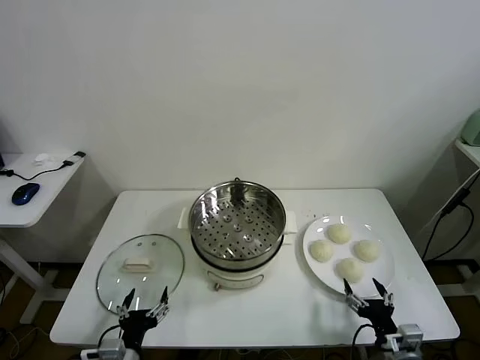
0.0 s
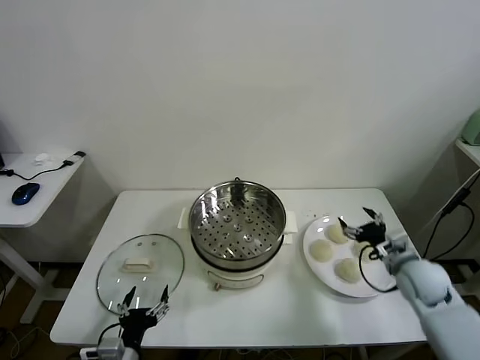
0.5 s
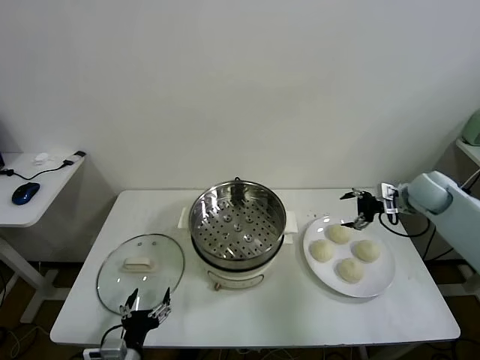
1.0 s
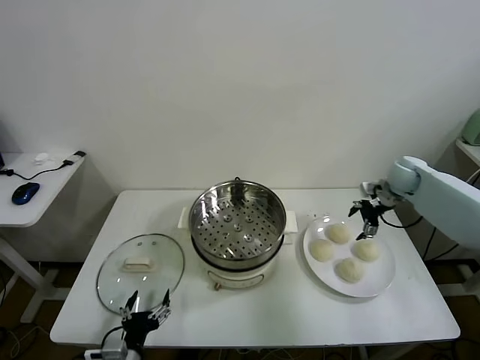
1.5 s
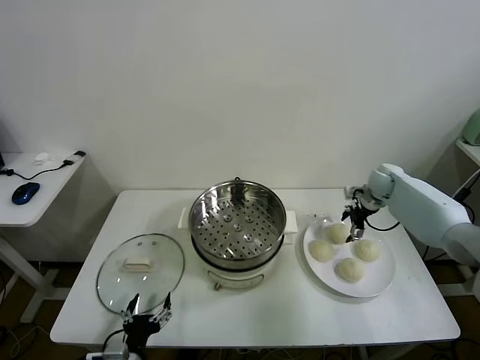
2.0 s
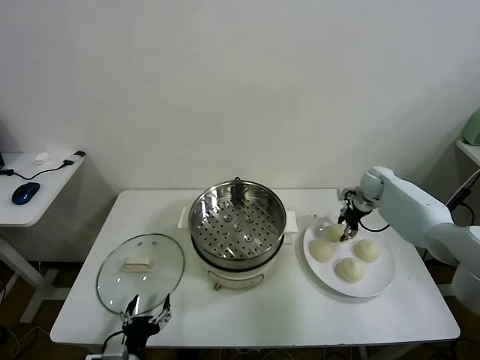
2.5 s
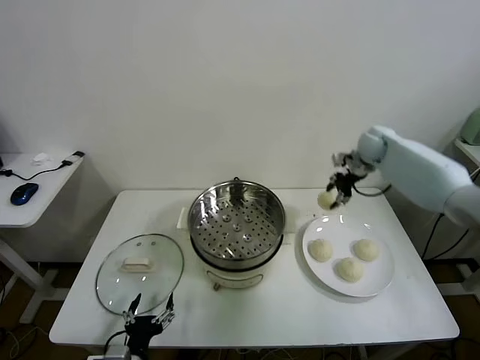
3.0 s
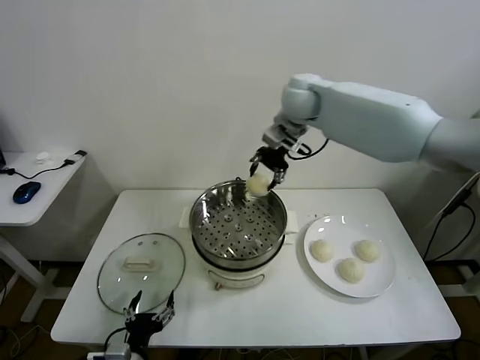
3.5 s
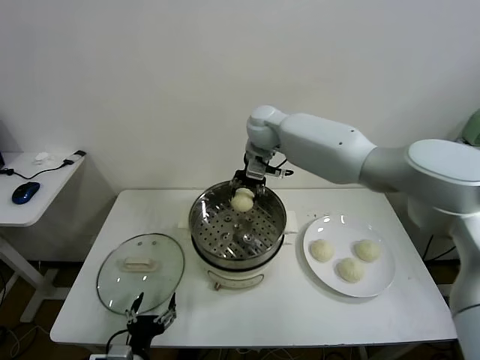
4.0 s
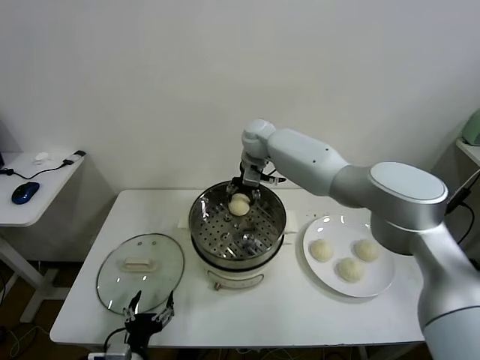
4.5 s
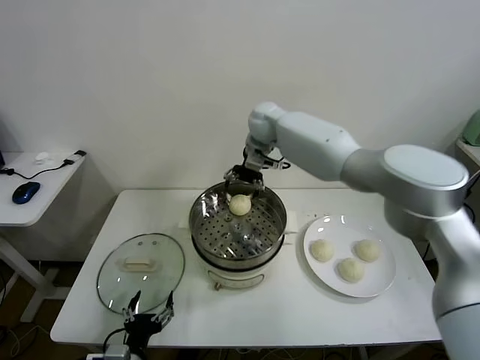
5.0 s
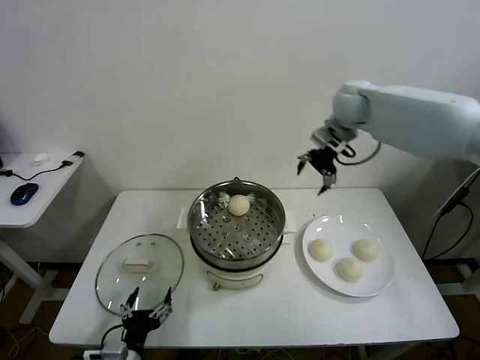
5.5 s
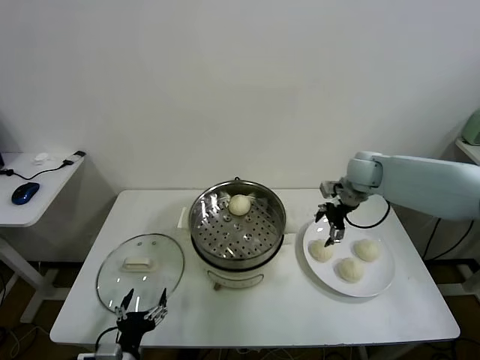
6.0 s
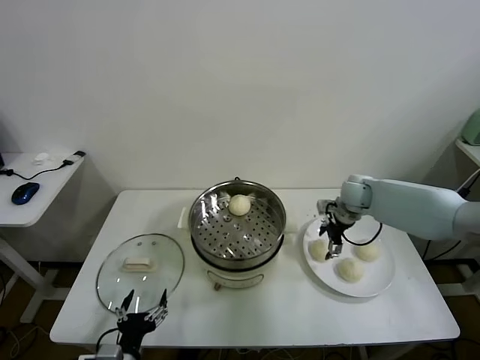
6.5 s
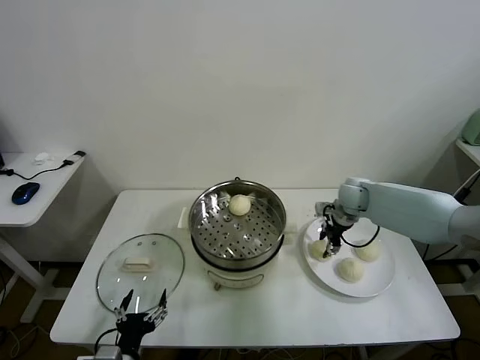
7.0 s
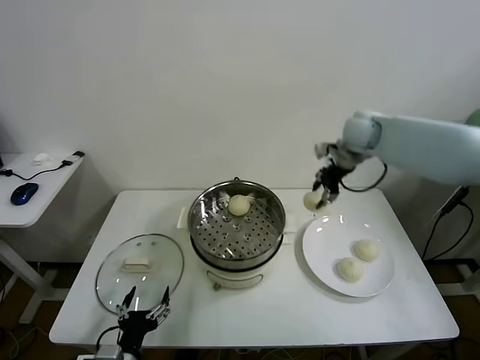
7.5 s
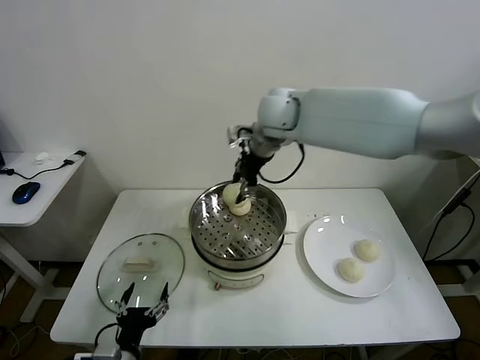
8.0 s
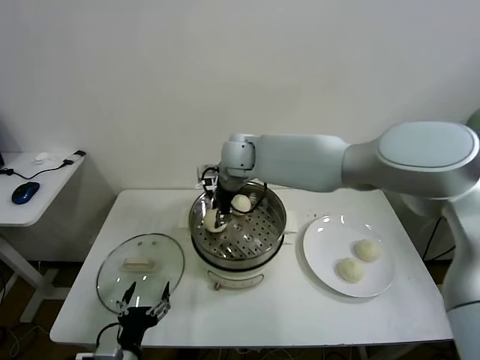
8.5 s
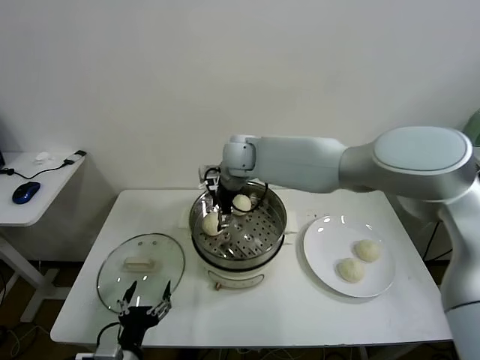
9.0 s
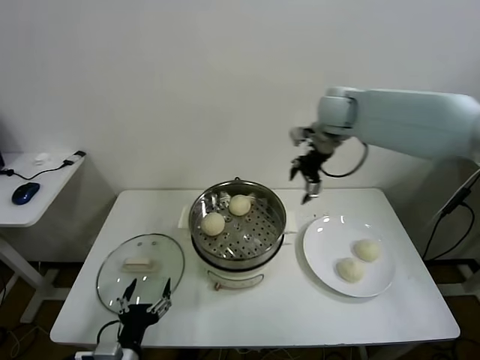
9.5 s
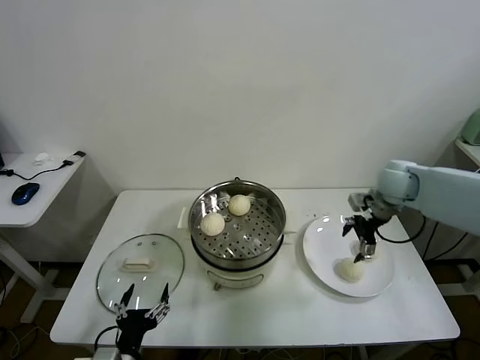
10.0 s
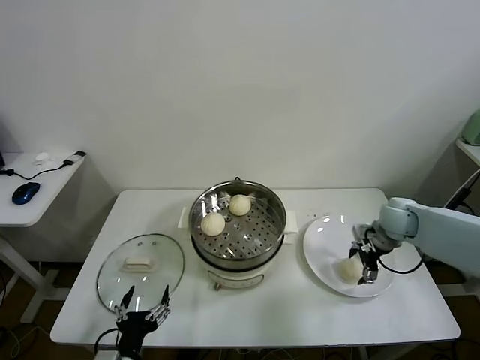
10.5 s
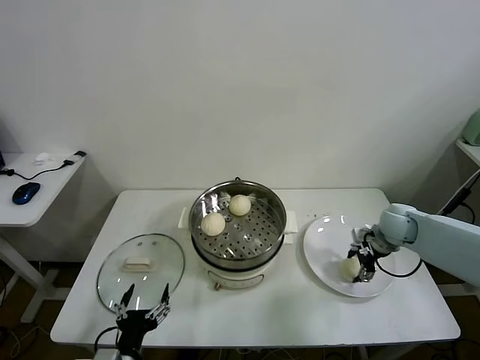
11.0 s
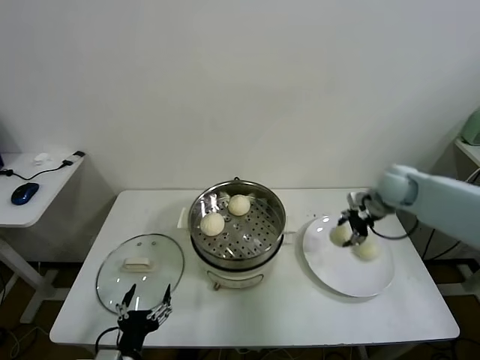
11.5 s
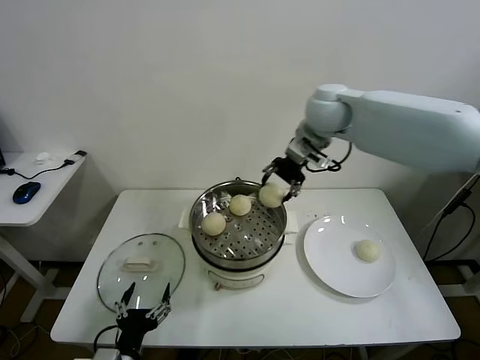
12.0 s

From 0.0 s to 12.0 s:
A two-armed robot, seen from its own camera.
Task of the whole recording: take steamed baozi put them in steamer.
Step, from 0.0 s to 2.5 s: Grasp the baozi in the plate with right gripper.
Step, from 3.0 s to 4.5 s: Place the baozi on the steamer with right gripper.
Step, from 5.0 s to 7.0 s: Grasp the baozi in the plate with right gripper.
Step, from 7.5 s to 9.0 s: Place the baozi on the steamer with right gripper.
Step, from 9.5 s to 11.0 s: Grasp the baozi in the plate with right gripper.
From 2.0 s to 4.0 s: The right gripper is displaced to the left and upward by about 40 cm, and closes its fingers.
From 4.0 s to 6.0 s: The right gripper travels to the right by roughly 25 cm, and opens up.
From 6.0 s to 8.0 s: The right gripper travels to the left and upward by roughly 30 cm, and closes.
From 8.0 s to 10.0 s: The right gripper heads to the right and downward, covering about 35 cm, and opens its fingers.
From 10.0 s to 12.0 s: The right gripper moves to the left and upward, roughly 25 cm, and closes up.

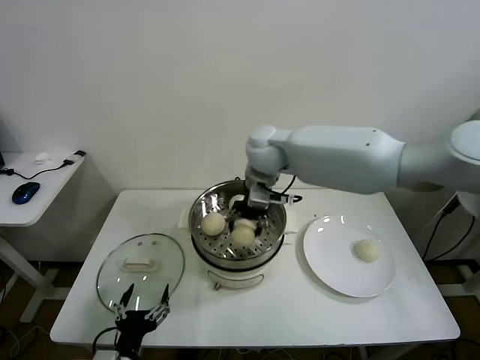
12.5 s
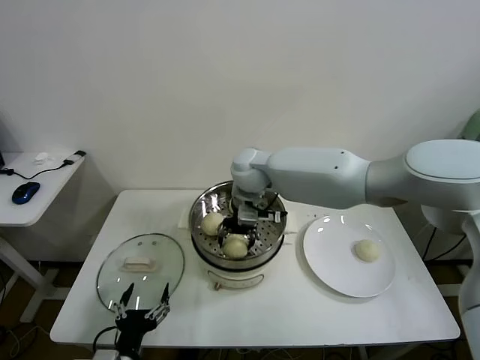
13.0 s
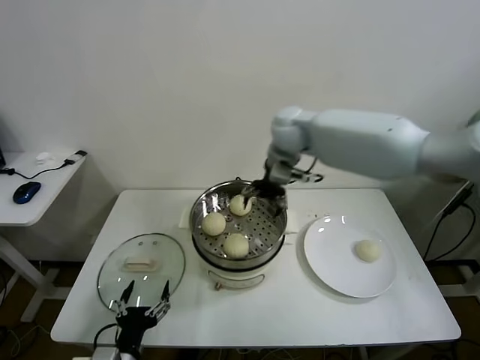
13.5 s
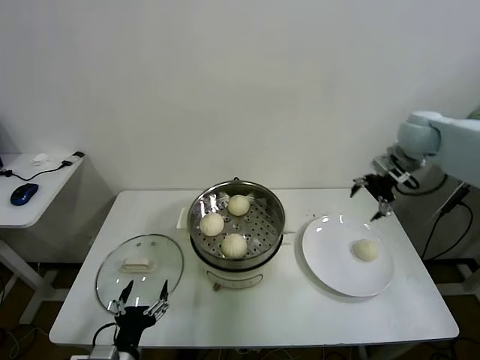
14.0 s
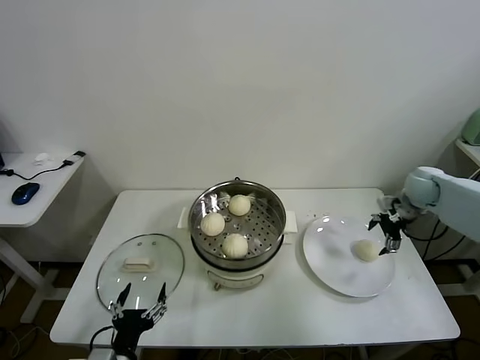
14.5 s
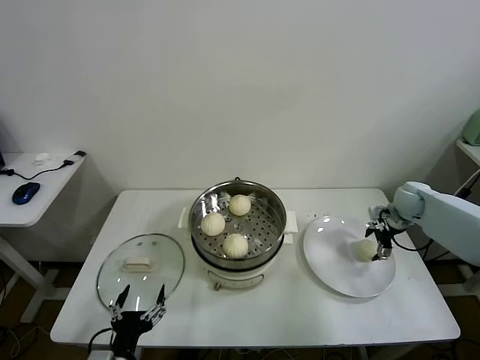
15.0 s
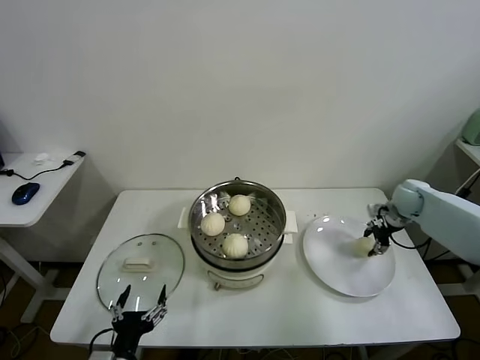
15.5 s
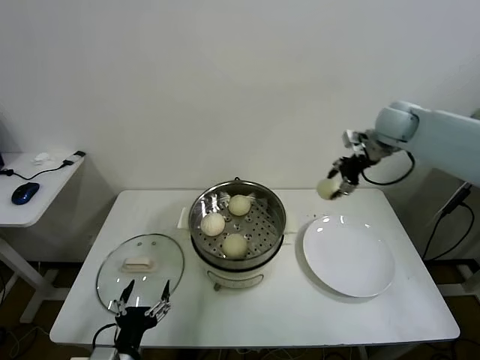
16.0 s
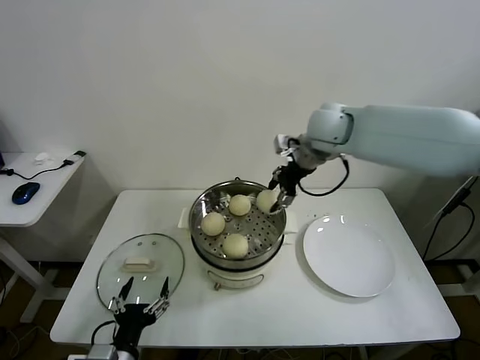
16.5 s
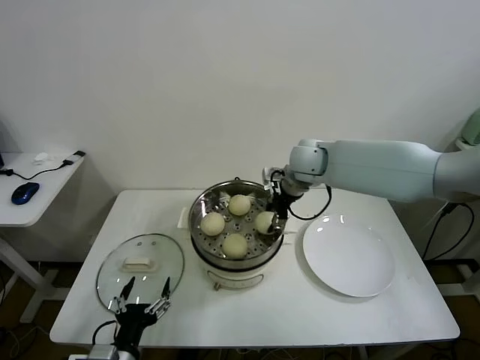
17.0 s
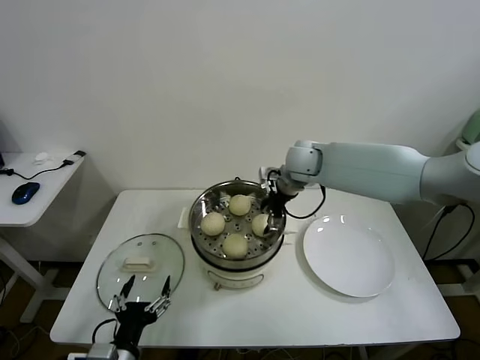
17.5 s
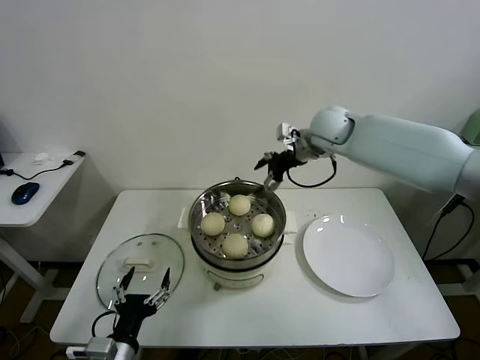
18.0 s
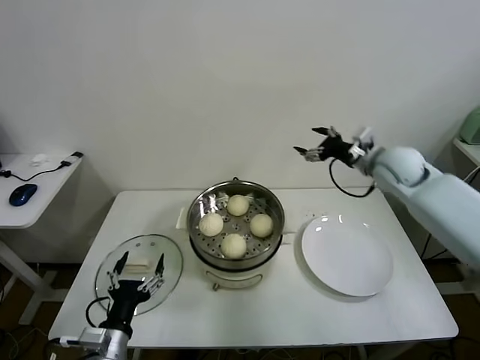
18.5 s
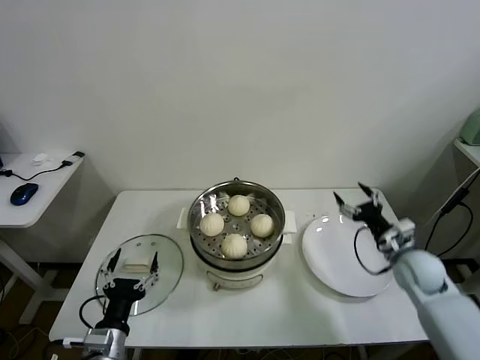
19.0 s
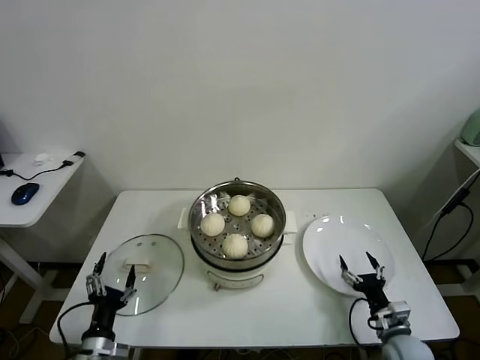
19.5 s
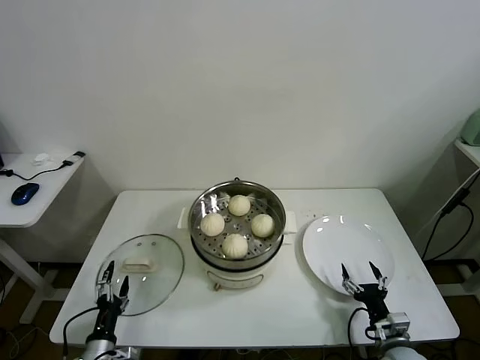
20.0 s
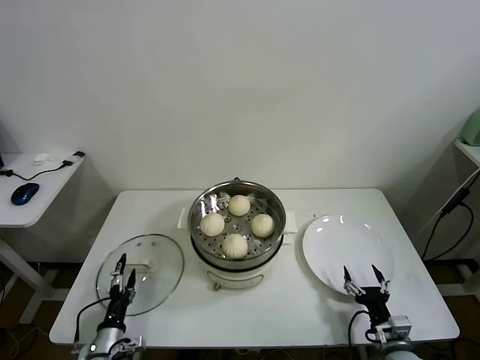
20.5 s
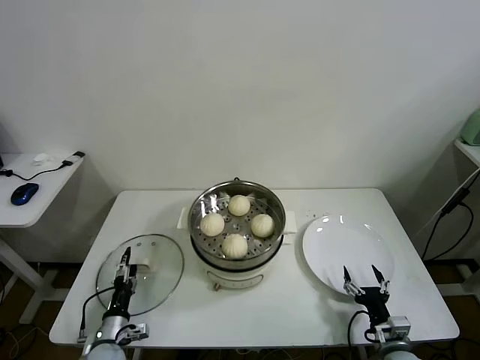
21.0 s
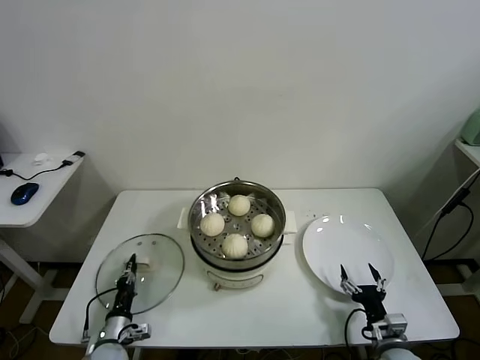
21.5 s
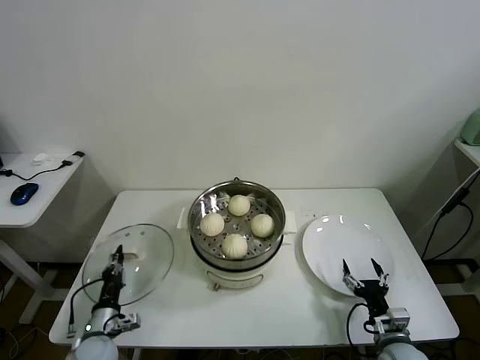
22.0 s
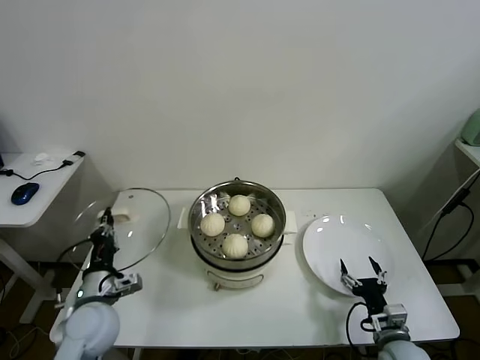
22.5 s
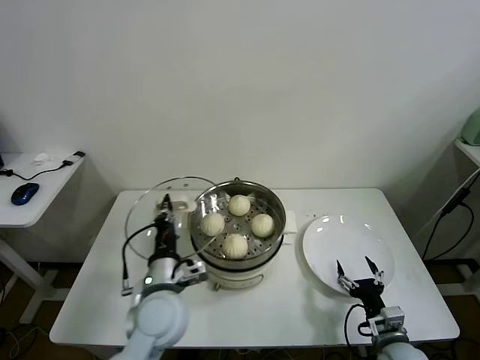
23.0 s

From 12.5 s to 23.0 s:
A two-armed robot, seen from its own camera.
Task of the whole recording: take steamed baozi put them in steamer.
Step, from 13.5 s to 15.0 s: Grasp the baozi in the plate with right gripper.
Step, from 15.5 s to 17.5 s: Place the baozi on the steamer with right gripper.
Step, from 18.0 s to 21.5 s: Grasp the pot lid with left gripper.
From 12.5 s to 14.5 s: The right gripper moves to the right, roughly 40 cm, and opens its fingers.
From 14.5 s to 16.5 s: The right gripper heads to the left and upward, covering some 30 cm, and closes its fingers.
From 16.5 s to 19.0 s: The right gripper swings up and down, some 25 cm each way, with 2 reversals, and opens its fingers.
From 19.0 s to 21.0 s: The left gripper moves downward, forward and to the left, about 20 cm, while the right gripper moves backward and downward, roughly 25 cm.
From 21.0 s to 23.0 s: The left gripper travels upward and to the right by about 25 cm, and closes.

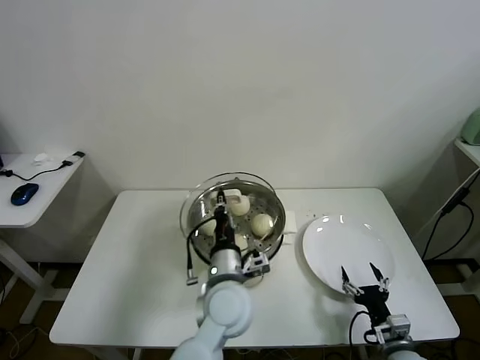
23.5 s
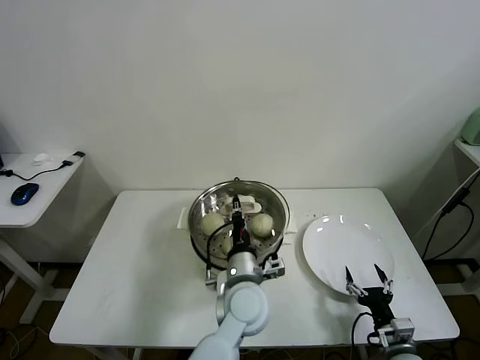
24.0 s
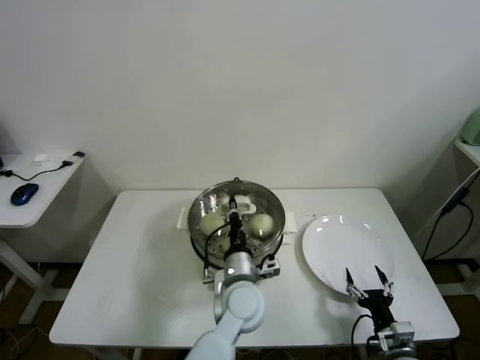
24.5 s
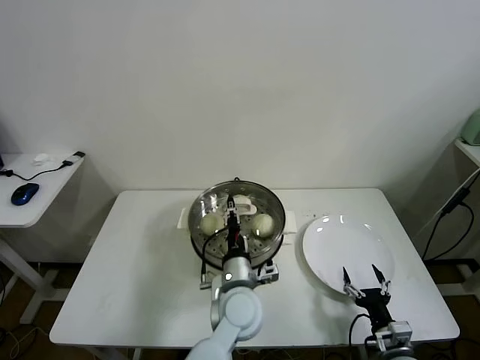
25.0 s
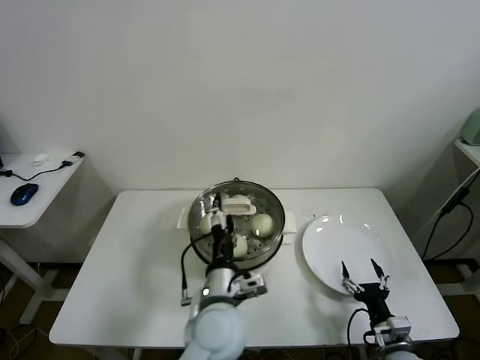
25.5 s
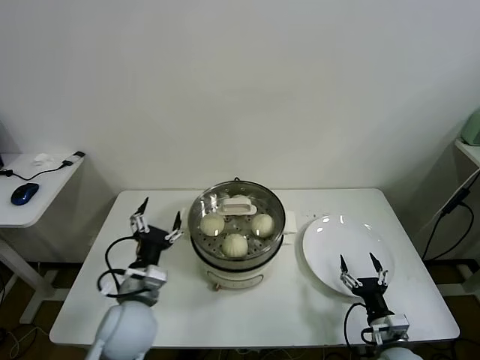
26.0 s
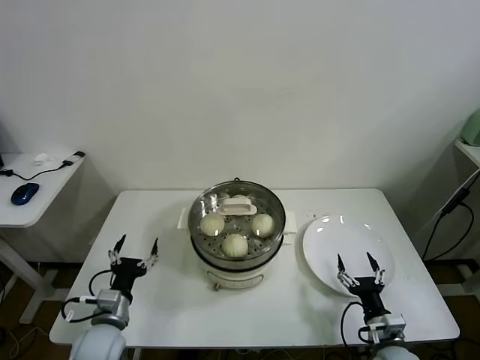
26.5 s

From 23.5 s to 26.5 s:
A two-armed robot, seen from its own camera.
Task of the whole recording: take steamed baozi put them in steamer.
From 23.5 s to 25.0 s: The left gripper changes place by roughly 5 cm.
From 25.0 s to 26.5 s: The left gripper heads to the left, covering some 30 cm, and opens up.
